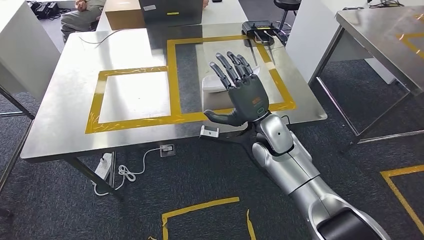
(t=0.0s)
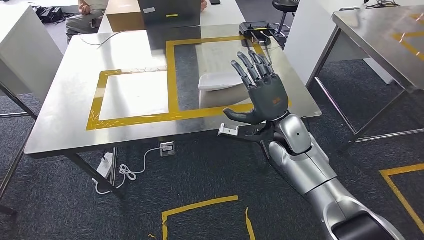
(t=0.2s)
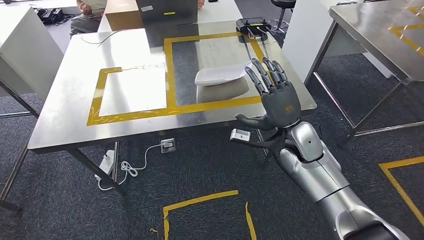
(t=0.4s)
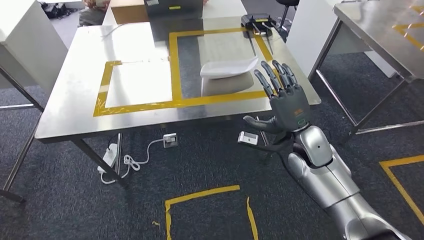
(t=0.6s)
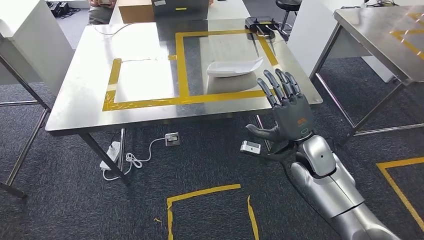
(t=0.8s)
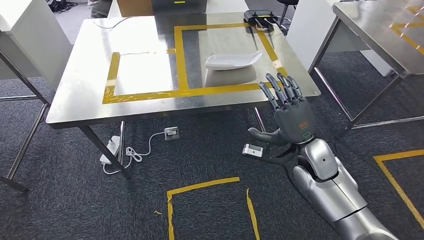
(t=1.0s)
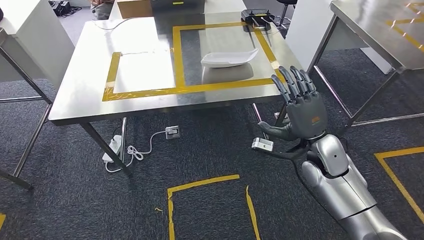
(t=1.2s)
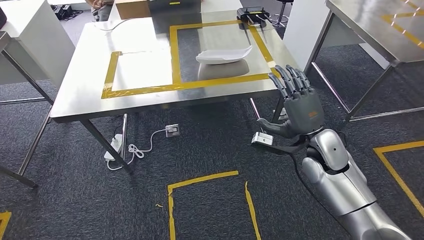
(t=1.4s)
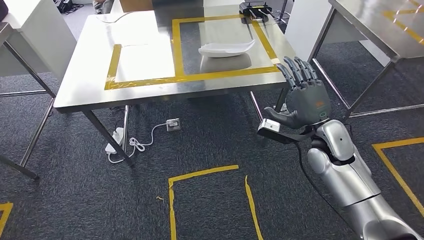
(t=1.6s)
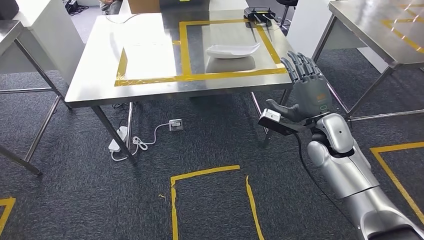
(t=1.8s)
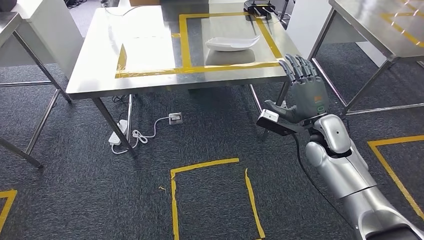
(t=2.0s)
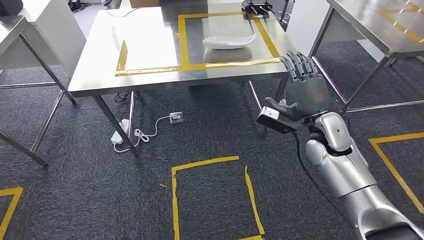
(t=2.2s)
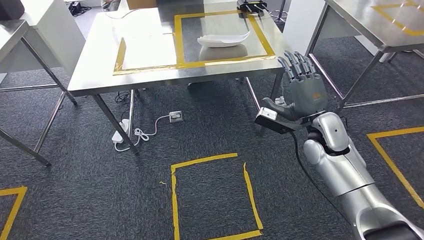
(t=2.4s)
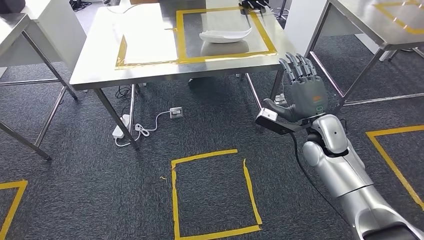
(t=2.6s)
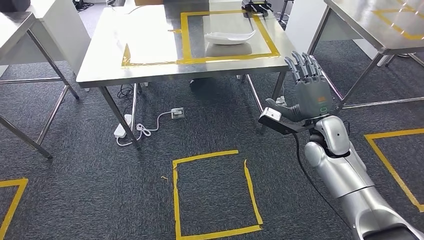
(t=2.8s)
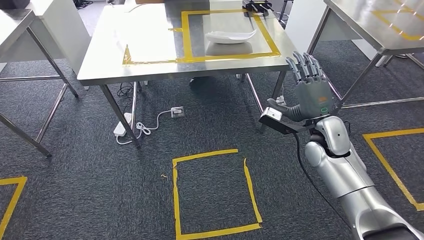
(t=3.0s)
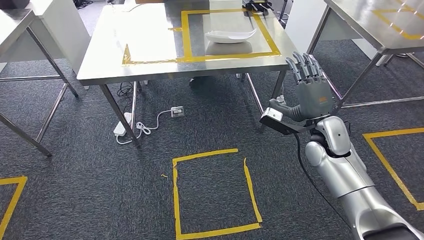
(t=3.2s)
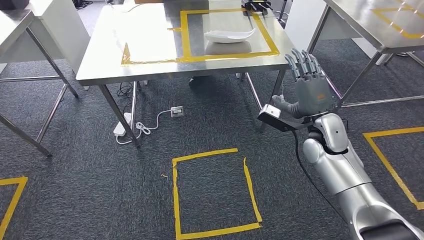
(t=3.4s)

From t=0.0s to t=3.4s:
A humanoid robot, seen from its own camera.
Step, from t=0.0s to t=3.4s: Return to the initial position at the workbench.
